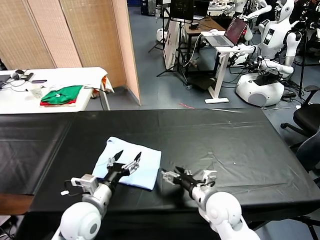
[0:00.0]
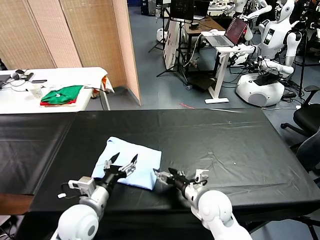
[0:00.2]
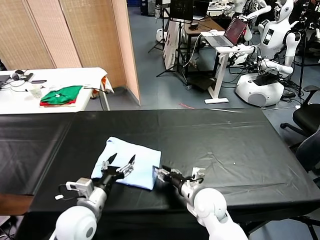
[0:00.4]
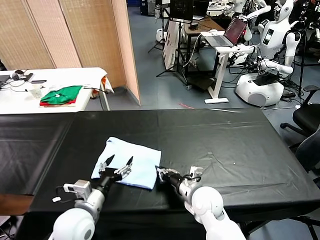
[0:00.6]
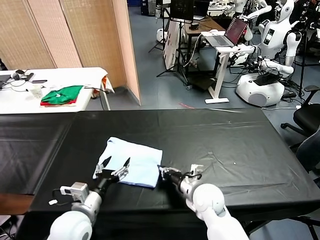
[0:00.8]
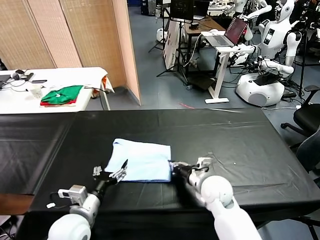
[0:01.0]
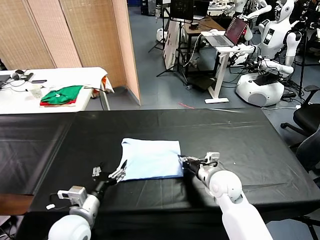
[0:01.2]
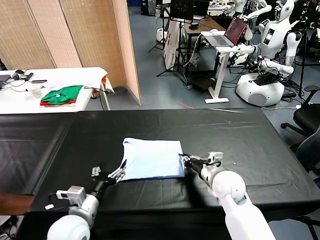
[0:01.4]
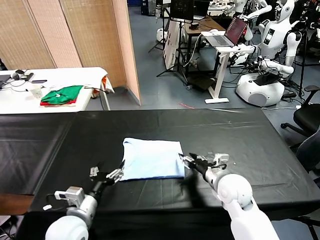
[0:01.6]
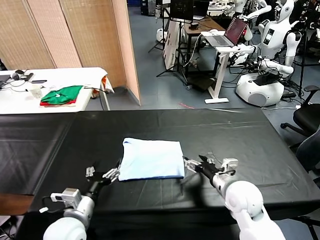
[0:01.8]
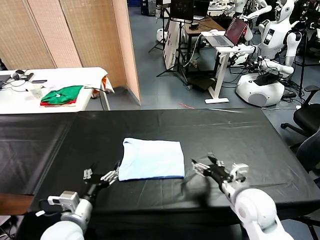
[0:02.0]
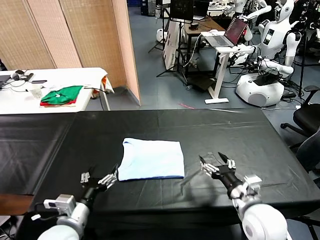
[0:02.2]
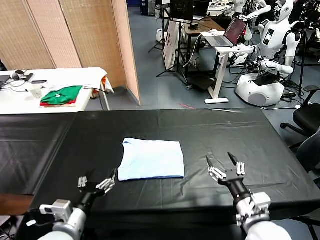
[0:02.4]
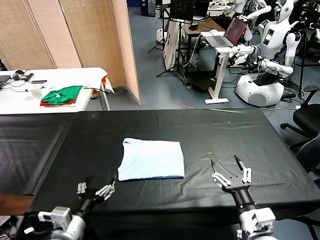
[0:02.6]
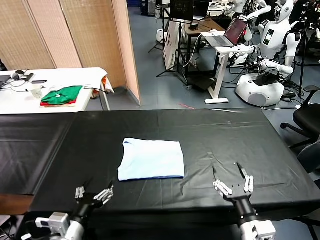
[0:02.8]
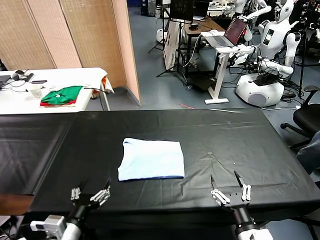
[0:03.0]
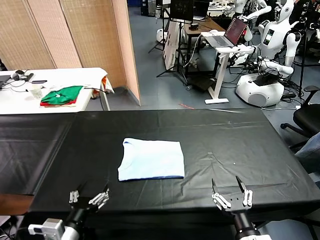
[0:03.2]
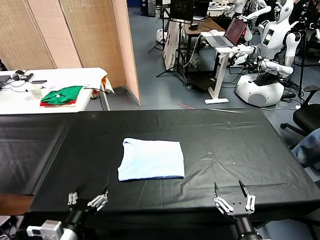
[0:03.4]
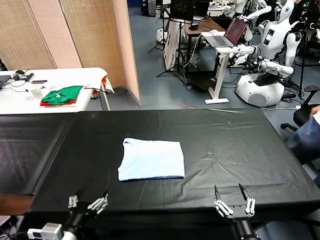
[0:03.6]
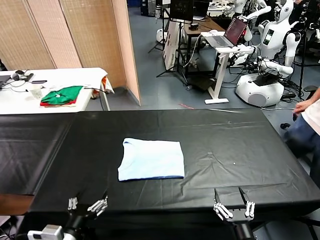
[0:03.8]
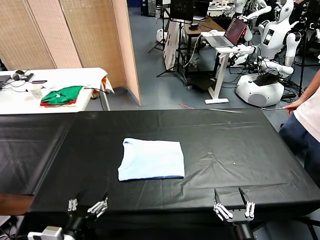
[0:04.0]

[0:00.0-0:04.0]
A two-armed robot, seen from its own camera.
Task of the whole recording: fold and organize the clothes.
Step, 0:00.0 to 0:01.6: Drag the clothes to the center of the table.
0:00.0 to 0:01.4: The right gripper heads forward, covering roughly 5 cm, and closes up.
0:01.4 to 0:02.6: The right gripper moves backward, about 20 cm, and opens its fingers. Meanwhile the left gripper is displaced backward by roughly 5 cm.
0:02.6 to 0:04.0: The right gripper moves backward, approximately 10 cm.

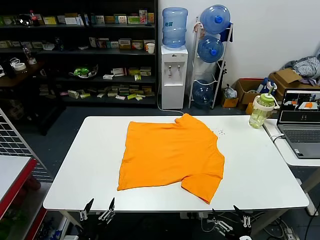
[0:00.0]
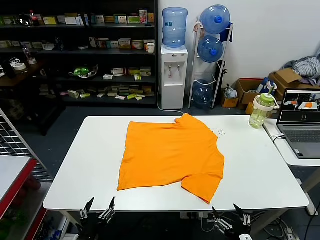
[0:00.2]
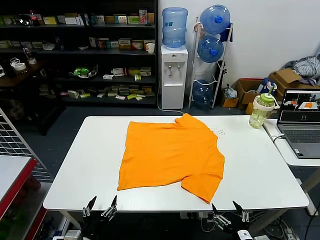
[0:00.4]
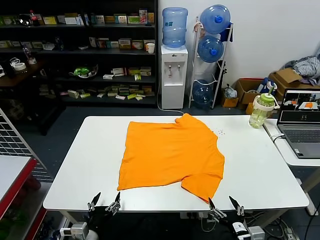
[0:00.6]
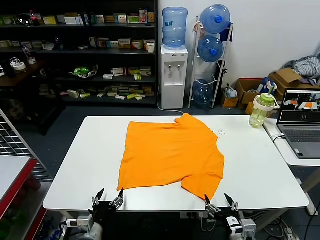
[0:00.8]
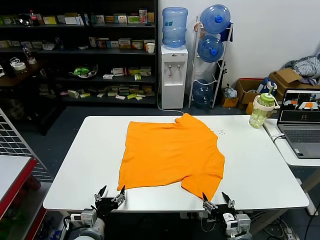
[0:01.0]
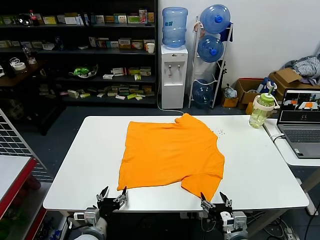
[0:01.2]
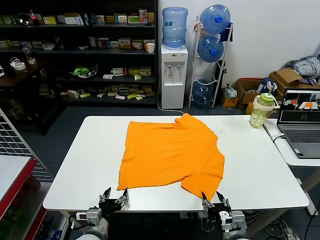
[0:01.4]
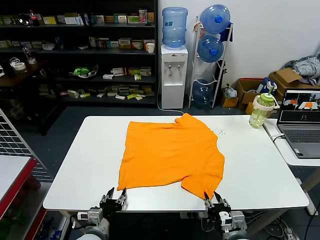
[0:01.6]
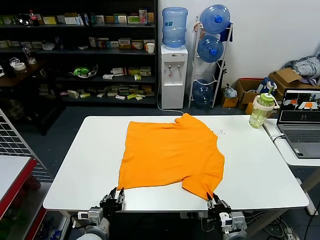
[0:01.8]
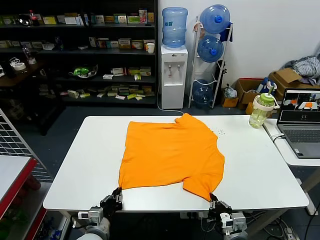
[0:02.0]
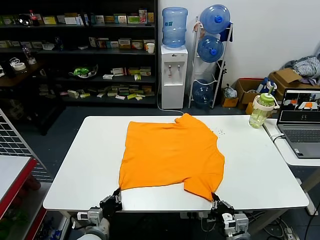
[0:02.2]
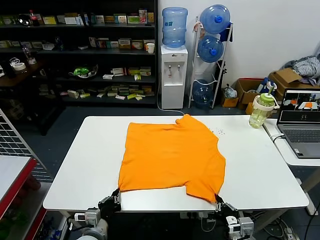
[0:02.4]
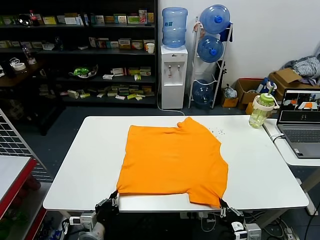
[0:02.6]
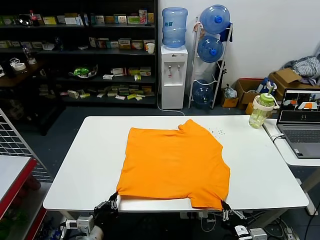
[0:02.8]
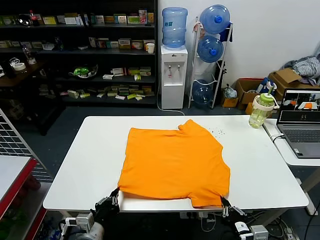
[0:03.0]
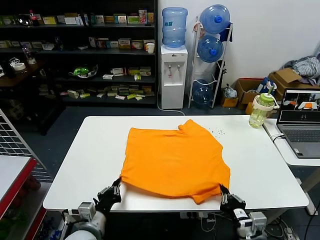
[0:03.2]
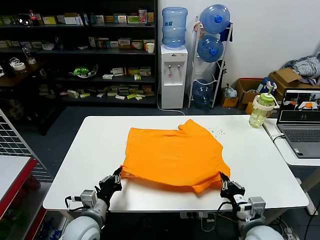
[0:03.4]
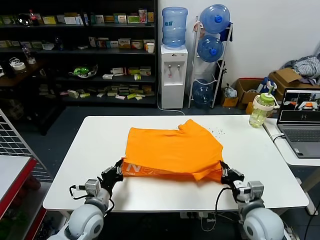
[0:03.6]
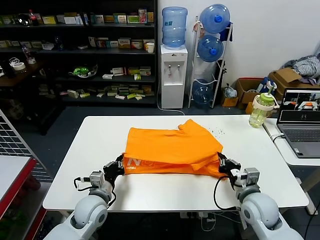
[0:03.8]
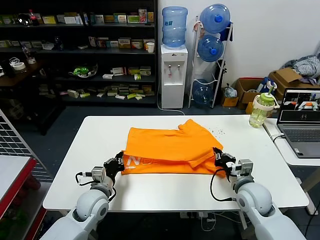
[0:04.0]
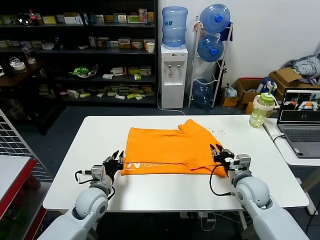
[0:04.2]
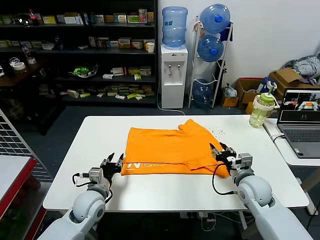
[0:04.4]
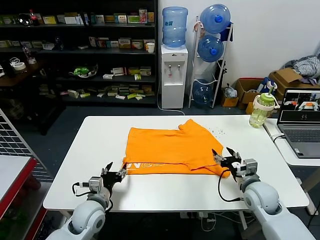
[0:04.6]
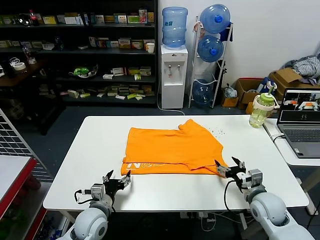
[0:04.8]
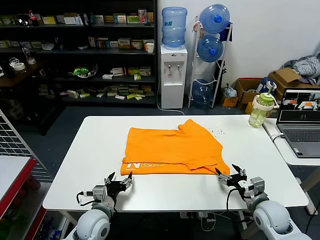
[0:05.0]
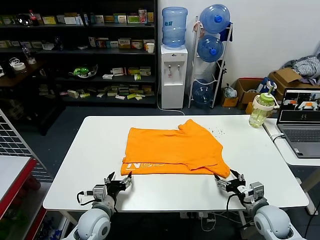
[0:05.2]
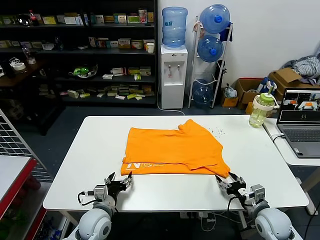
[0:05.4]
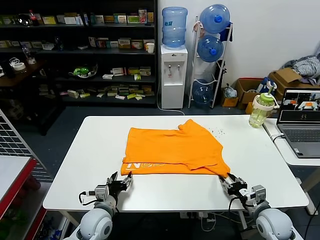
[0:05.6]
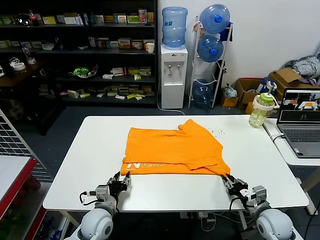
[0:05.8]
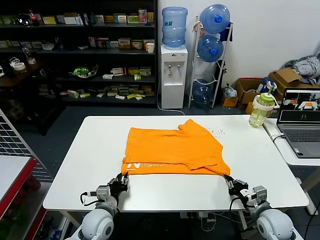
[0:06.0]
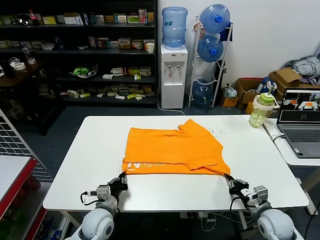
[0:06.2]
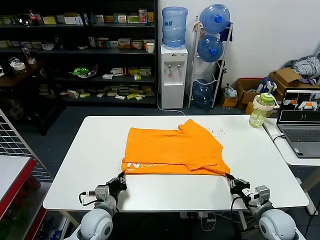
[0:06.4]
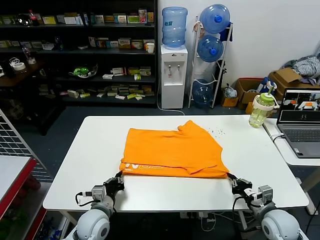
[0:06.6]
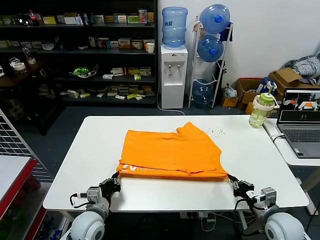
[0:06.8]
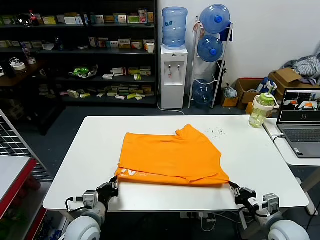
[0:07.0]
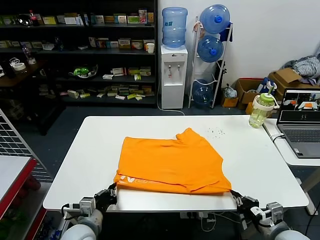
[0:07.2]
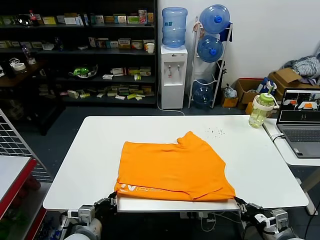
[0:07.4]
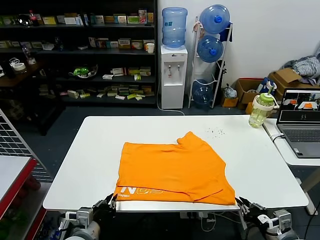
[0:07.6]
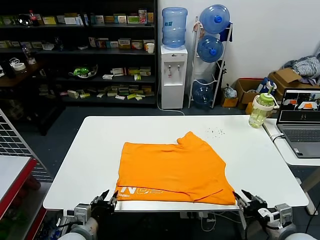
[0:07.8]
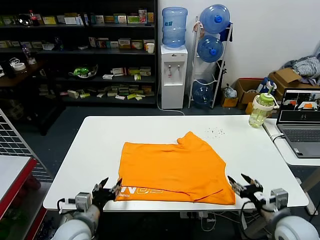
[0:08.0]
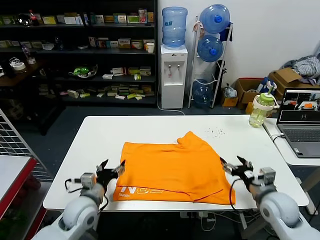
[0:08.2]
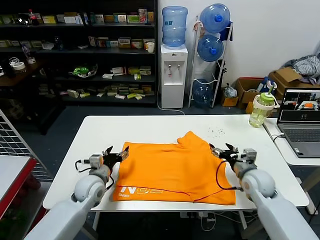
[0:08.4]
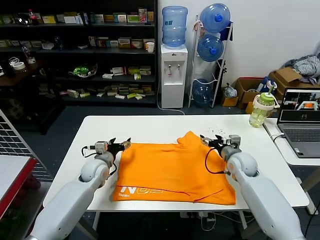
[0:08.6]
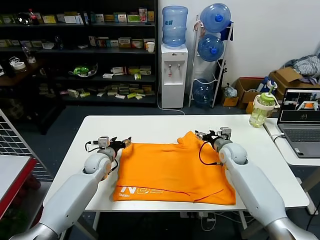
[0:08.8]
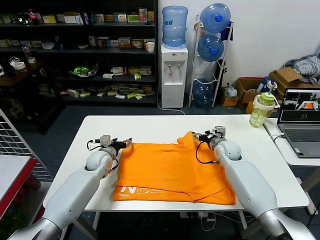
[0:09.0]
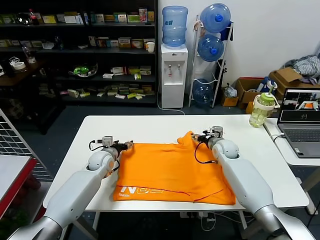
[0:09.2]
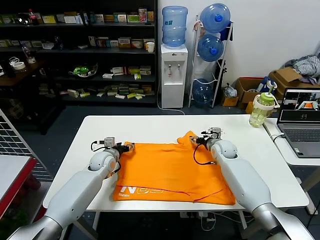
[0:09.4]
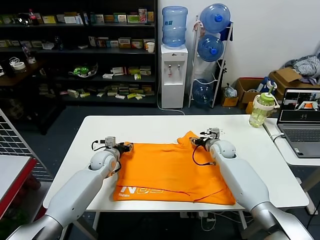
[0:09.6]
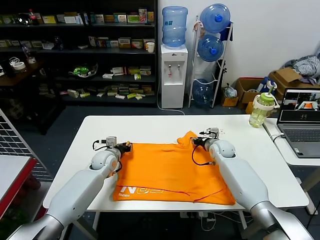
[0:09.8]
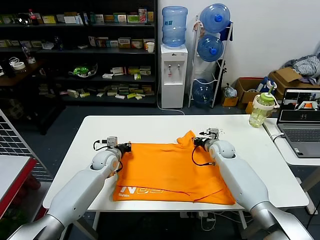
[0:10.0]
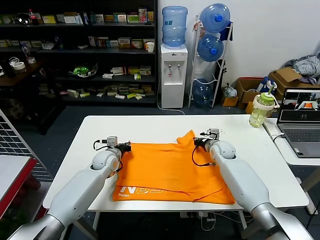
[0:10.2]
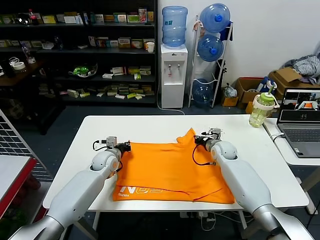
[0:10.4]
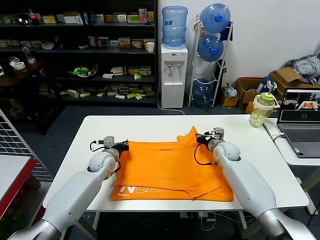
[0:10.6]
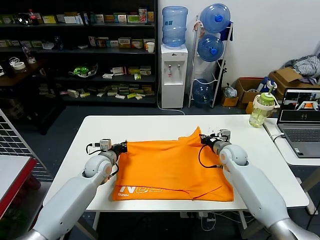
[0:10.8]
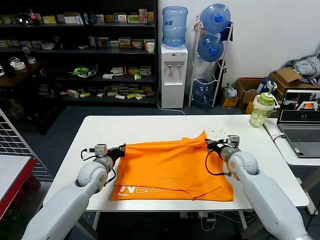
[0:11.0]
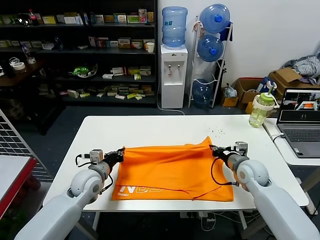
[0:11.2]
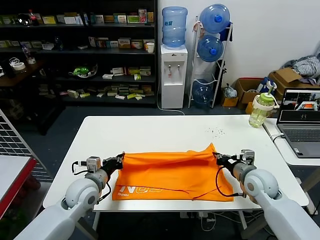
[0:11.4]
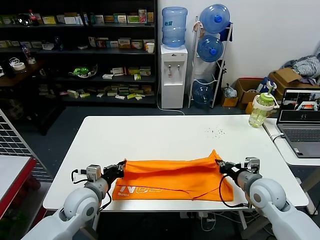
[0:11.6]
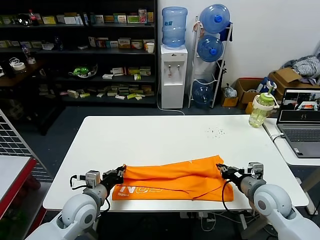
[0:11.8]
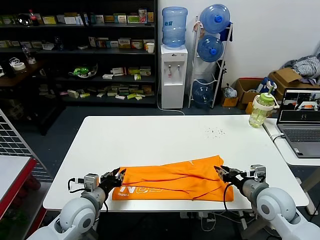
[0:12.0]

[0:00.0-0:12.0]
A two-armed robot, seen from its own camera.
Task of the whole recording: fold and organize the clothes.
Step, 0:00.0 to 0:02.0: use both grippers simultaneously to clamp the lower edge of the clothing fabric.
Step, 0:02.2 to 0:04.0: use both grippers to drag the lower edge of the fabric forward and fold it over the upper edge.
Step, 0:04.2 to 0:07.6: Drag the clothes downward with both gripper.
Step, 0:07.8 to 0:10.0: use both grippers simultaneously to clamp the upper edge of the clothing fabric.
Step, 0:10.2 to 0:11.8: use both grippers to drag the upper edge of the fabric backward and fold it over the lower edge.
0:01.6 to 0:03.0: The grippers both shift upward by some 5 cm. The left gripper closes. Meanwhile the right gripper closes up.
0:03.0 to 0:04.4: The grippers both shift forward by some 20 cm. The right gripper opens its fingers. The left gripper opens its fingers.
0:04.4 to 0:06.0: The left gripper goes roughly 5 cm downward, and opens, then closes once more. The right gripper travels downward, backward and to the right by some 10 cm, and closes.
0:06.0 to 0:07.6: Both grippers travel together backward and upward, roughly 10 cm.
0:07.6 to 0:09.0: The grippers both shift forward by some 35 cm. The left gripper opens, while the right gripper opens.
0:09.0 to 0:10.4: The right gripper closes up, while the left gripper closes its fingers.
0:10.4 to 0:12.0: The two grippers go about 20 cm backward. The right gripper opens its fingers.

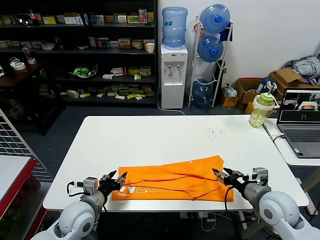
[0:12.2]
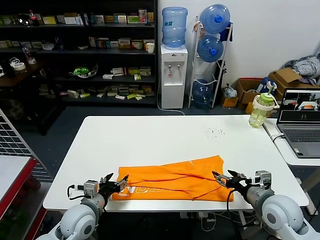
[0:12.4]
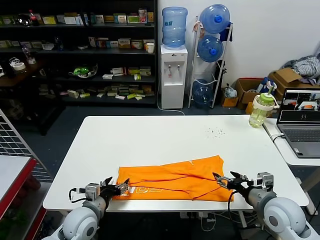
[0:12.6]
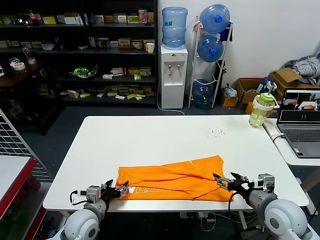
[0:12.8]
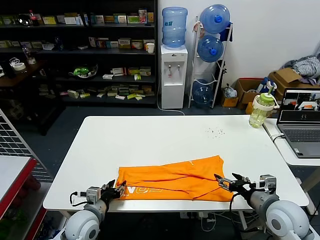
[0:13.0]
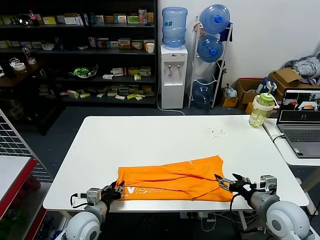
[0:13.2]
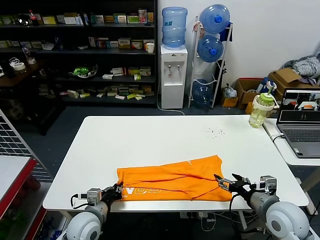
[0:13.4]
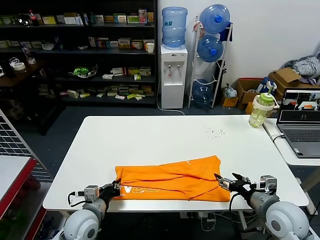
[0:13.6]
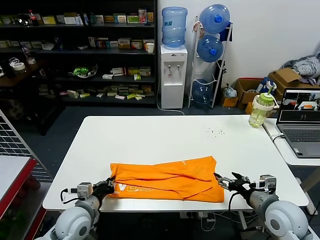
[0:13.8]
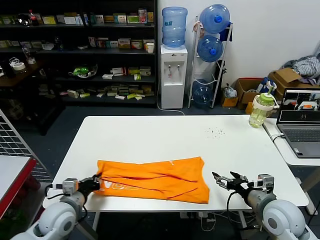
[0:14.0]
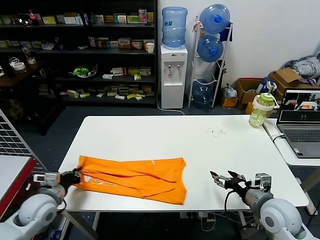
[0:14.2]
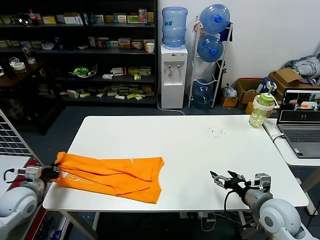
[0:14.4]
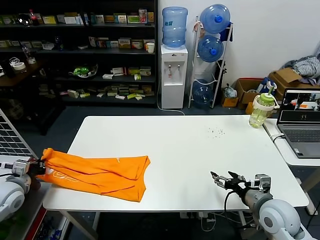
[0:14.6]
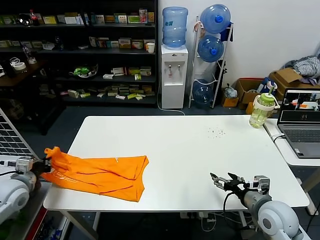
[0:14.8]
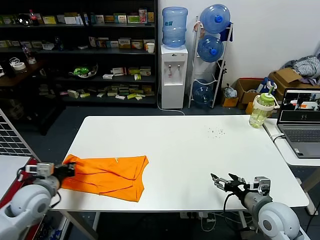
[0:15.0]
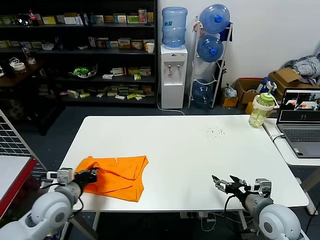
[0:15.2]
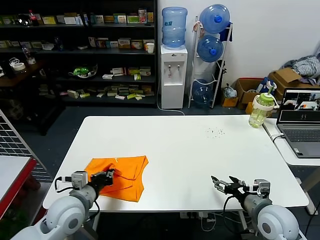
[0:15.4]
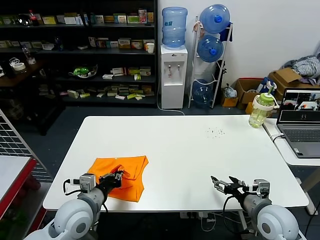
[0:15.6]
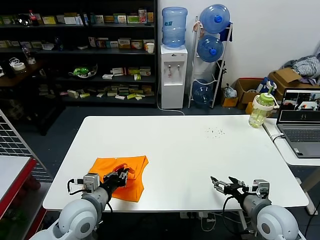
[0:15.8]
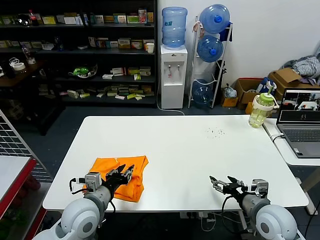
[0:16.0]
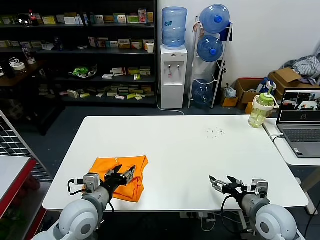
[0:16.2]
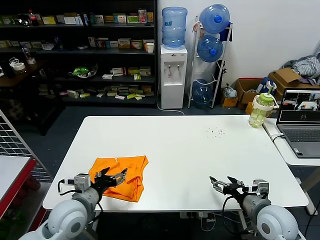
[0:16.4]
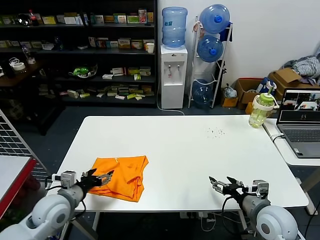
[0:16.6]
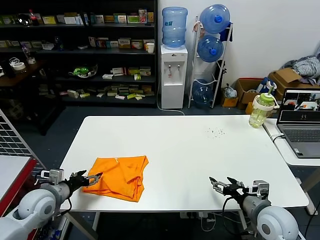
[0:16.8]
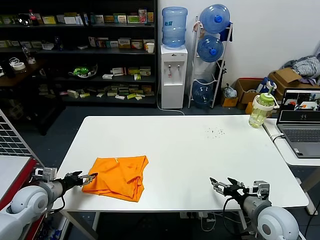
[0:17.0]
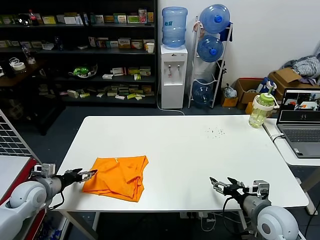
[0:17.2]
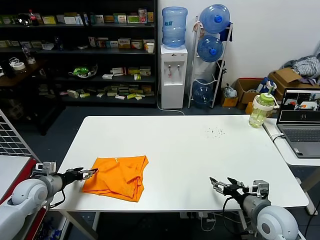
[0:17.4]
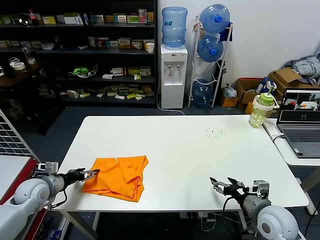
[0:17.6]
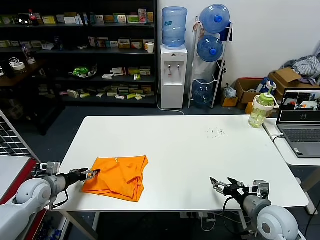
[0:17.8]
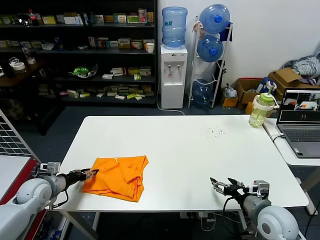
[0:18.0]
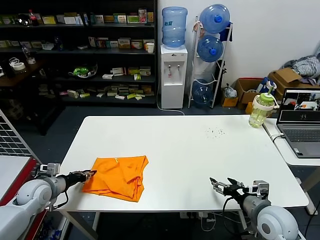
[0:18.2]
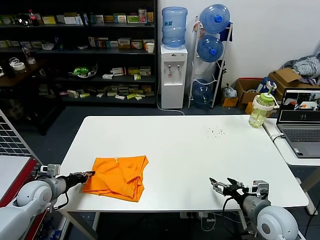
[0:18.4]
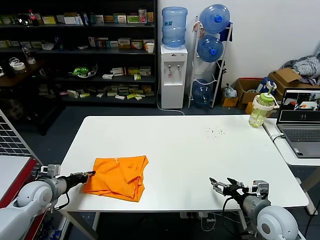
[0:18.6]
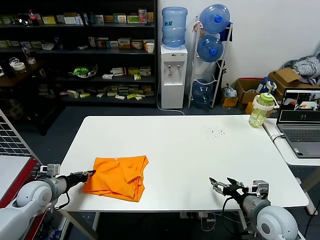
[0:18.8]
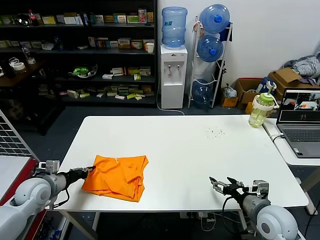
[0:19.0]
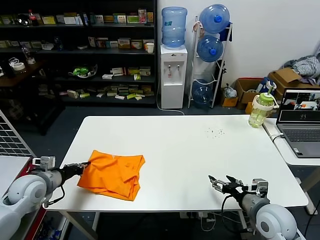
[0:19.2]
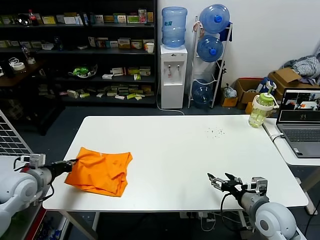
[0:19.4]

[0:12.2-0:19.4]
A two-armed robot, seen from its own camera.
Task of the whole recording: fold and organize the clothes.
Step, 0:12.2 to 0:13.4: use the left gripper to clamp the left edge of the fabric.
Step, 0:13.6 to 0:15.8: use the left gripper to drag the left edge of the fabric to the left and folds it over the right edge.
0:12.2 to 0:13.6: The left gripper closes.
0:13.6 to 0:15.0: The left gripper moves to the left and upward, roughly 20 cm.
0:15.0 to 0:16.6: The left gripper moves to the right, approximately 10 cm, and opens its fingers.
0:16.6 to 0:18.0: The left gripper goes some 15 cm to the left and forward.
0:18.0 to 0:19.4: The left gripper is displaced upward by approximately 5 cm, and closes up.
